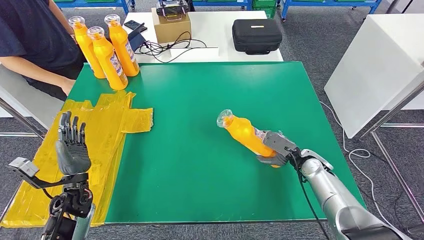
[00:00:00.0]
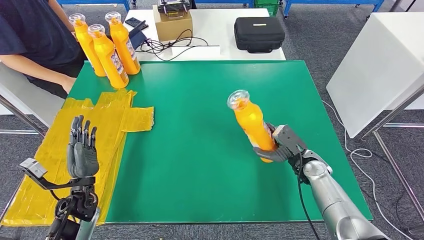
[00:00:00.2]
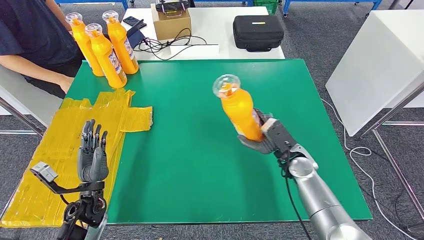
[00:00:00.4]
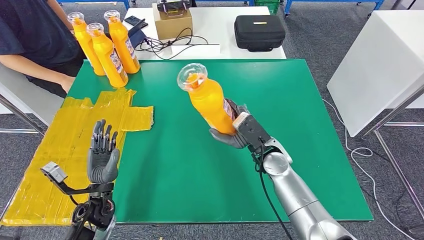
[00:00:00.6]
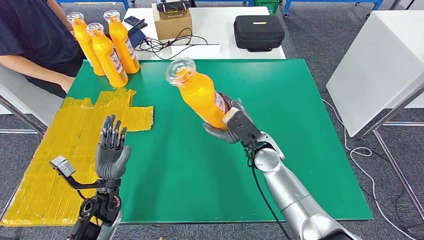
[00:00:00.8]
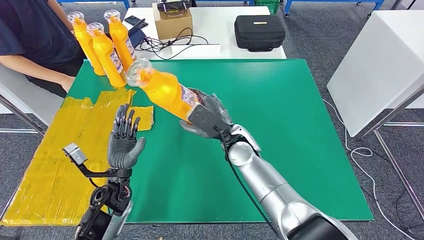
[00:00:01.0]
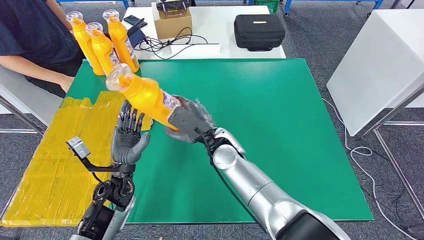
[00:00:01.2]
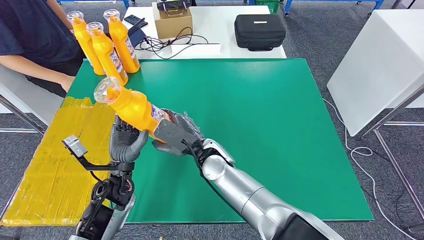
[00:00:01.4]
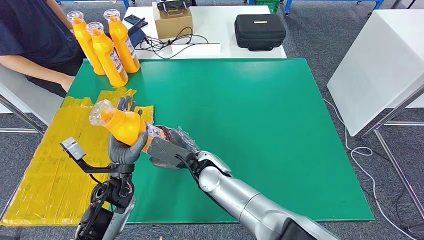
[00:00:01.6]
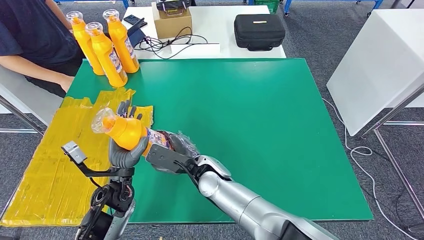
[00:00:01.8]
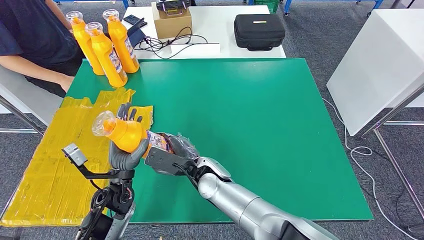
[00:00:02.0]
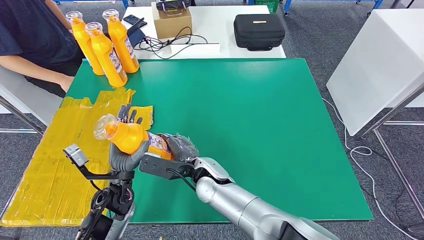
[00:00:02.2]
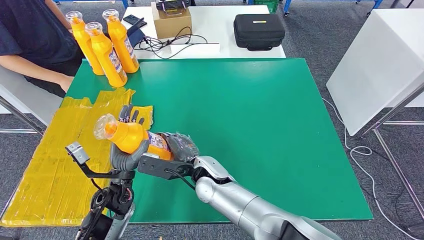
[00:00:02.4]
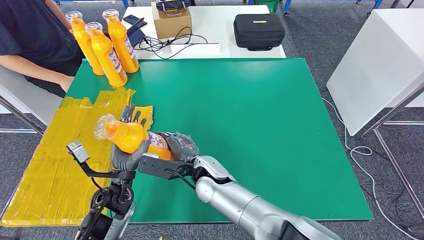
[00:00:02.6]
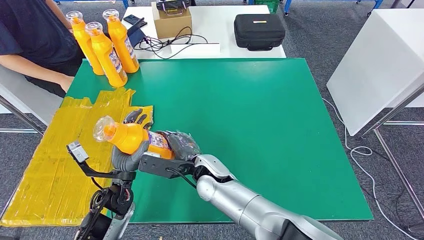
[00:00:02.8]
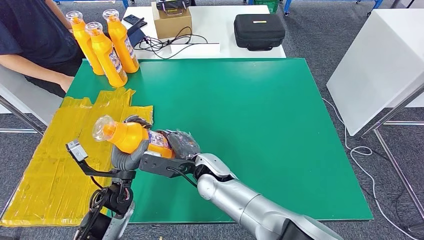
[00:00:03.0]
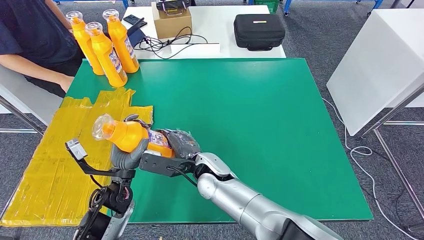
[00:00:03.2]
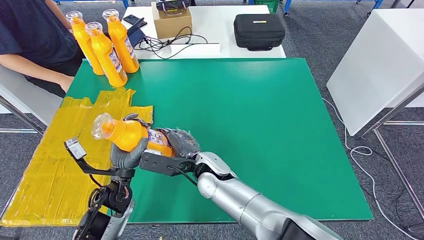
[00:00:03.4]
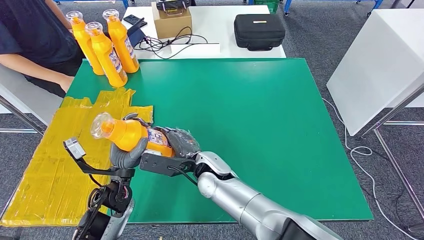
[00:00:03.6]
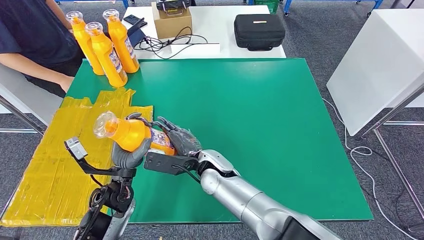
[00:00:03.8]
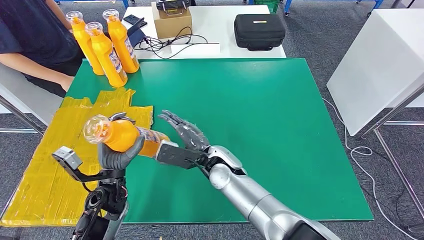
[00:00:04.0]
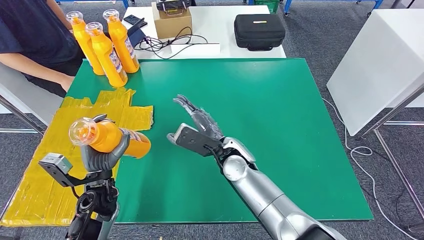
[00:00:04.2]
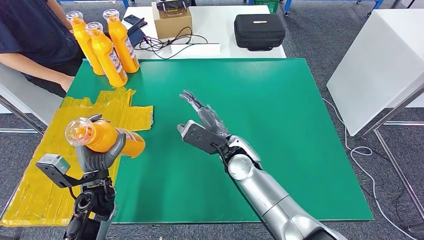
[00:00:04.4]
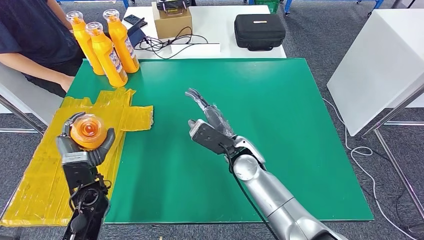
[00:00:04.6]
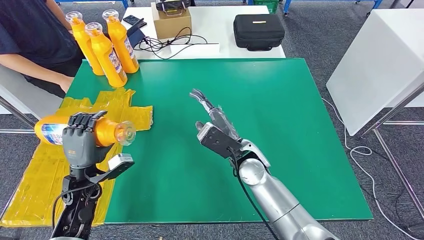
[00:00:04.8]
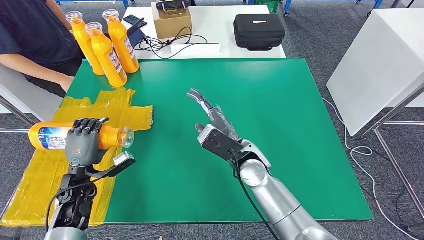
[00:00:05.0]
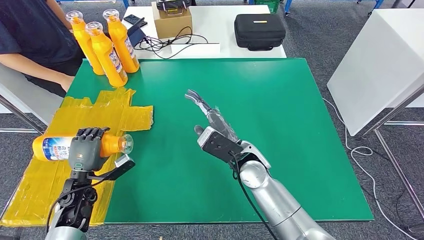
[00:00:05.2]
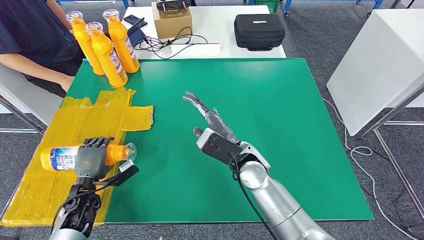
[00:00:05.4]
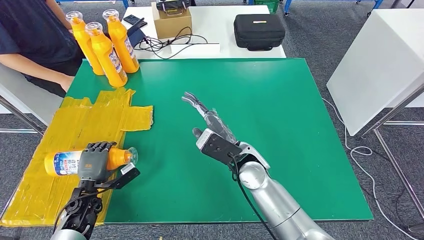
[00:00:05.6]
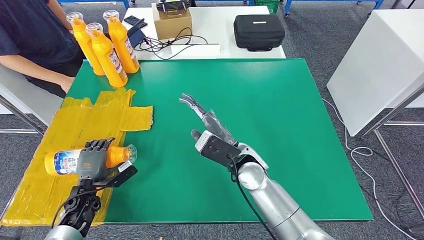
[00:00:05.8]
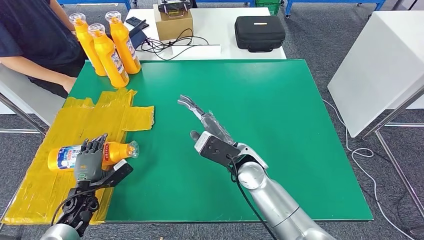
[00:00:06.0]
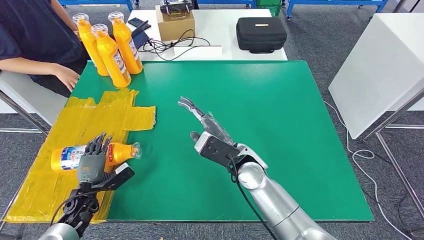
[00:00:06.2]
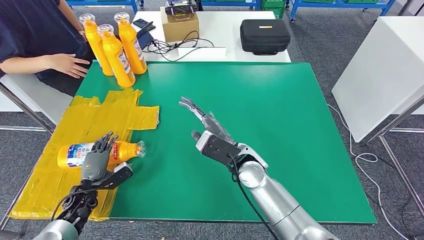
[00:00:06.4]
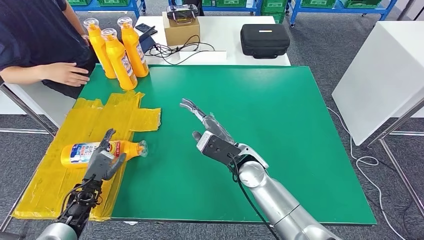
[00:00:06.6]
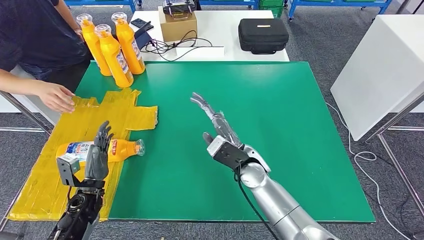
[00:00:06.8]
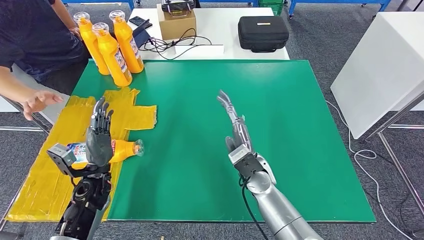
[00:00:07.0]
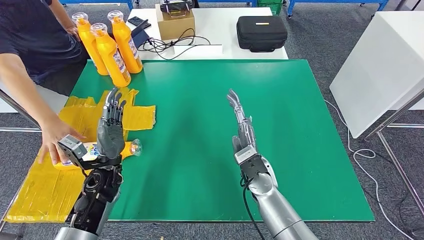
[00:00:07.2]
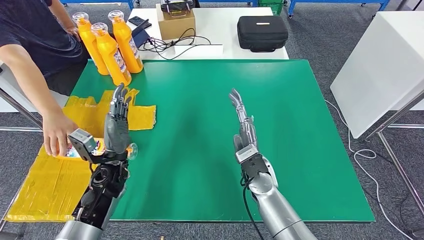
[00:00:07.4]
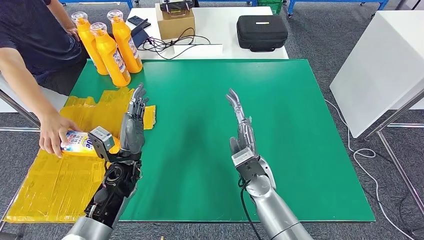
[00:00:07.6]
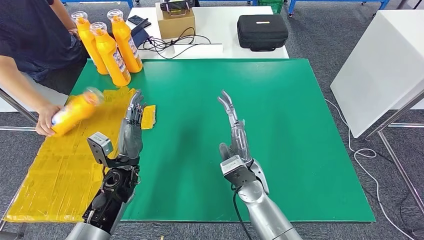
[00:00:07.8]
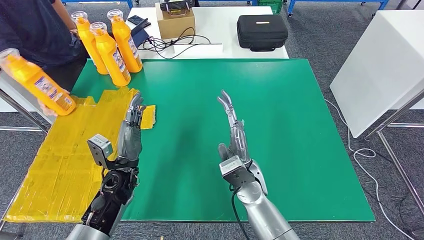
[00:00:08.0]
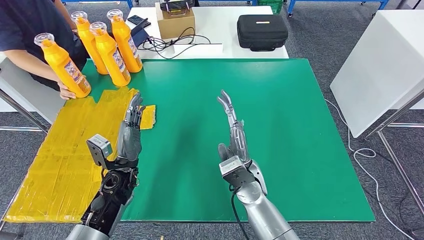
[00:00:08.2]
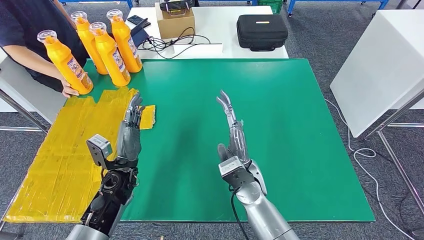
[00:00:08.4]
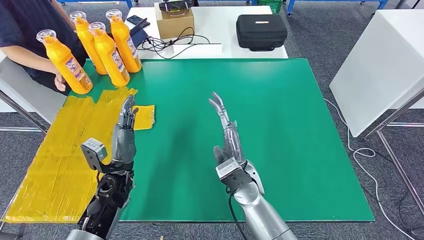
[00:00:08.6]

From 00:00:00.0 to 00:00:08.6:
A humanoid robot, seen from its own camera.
Step, from 00:00:01.4 to 00:00:08.4: Flip the fast-moving consumer goods bottle to the front side.
From 00:00:02.8 to 00:00:04.4: The left hand goes roughly 5 cm to the left, while the right hand shifts some 10 cm to the right.
From 00:00:04.4 to 00:00:05.8: The left hand shifts about 15 cm downward and to the left.
